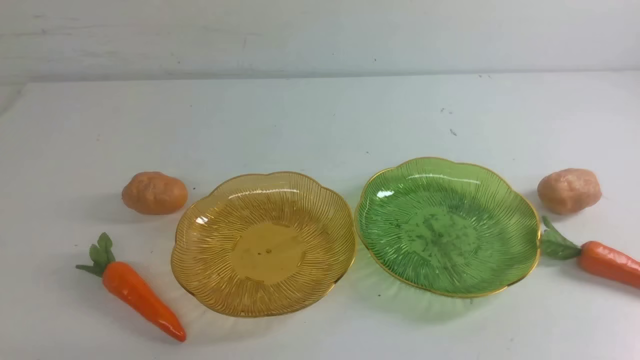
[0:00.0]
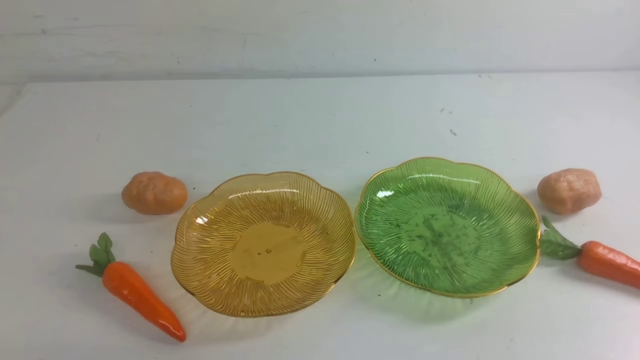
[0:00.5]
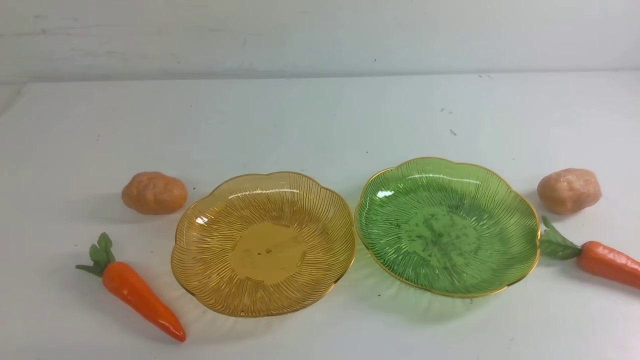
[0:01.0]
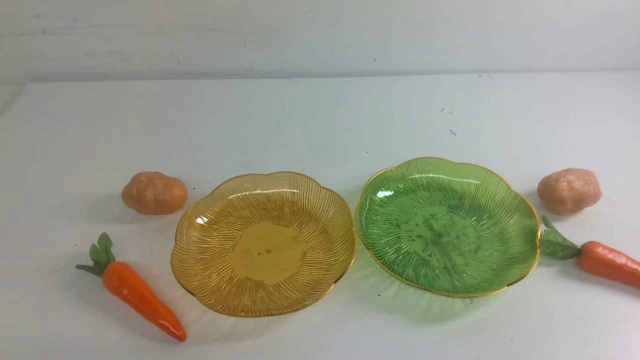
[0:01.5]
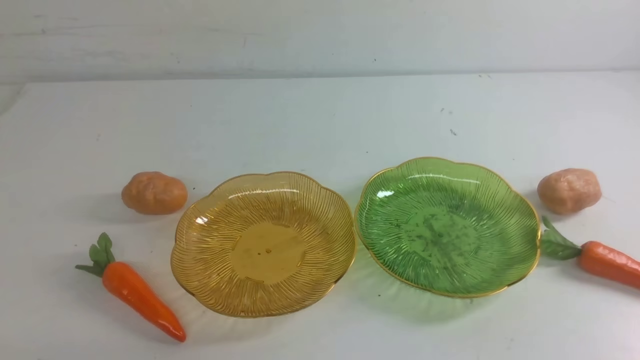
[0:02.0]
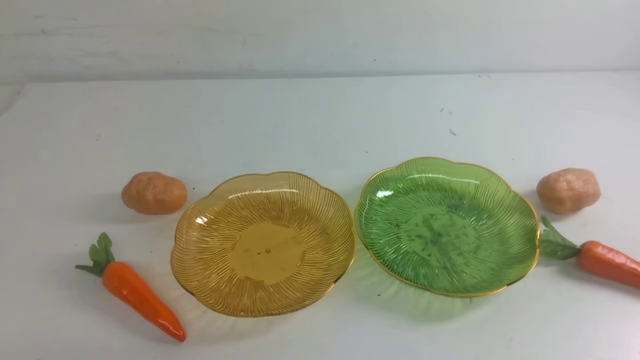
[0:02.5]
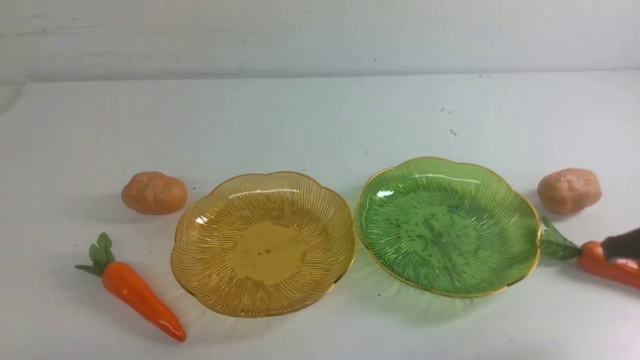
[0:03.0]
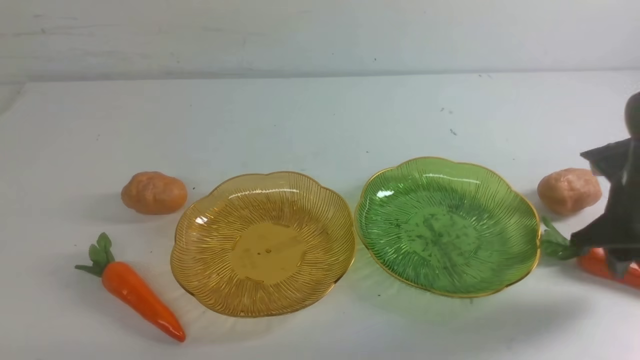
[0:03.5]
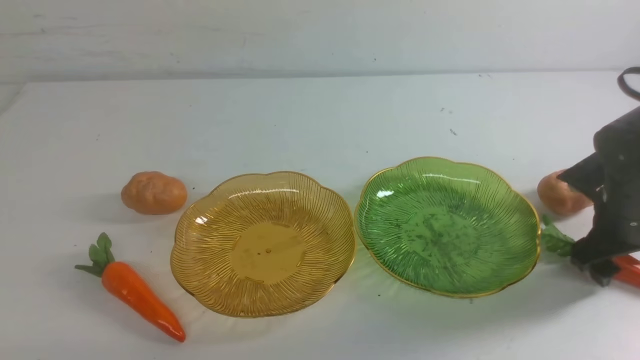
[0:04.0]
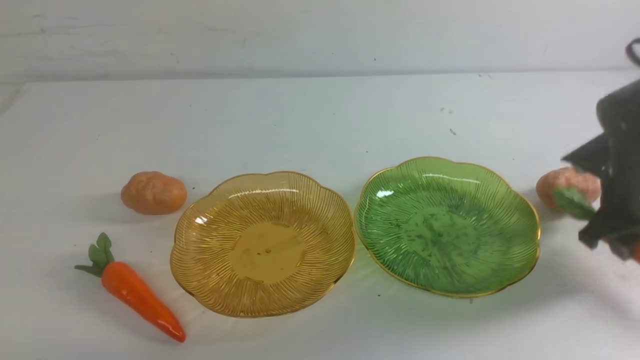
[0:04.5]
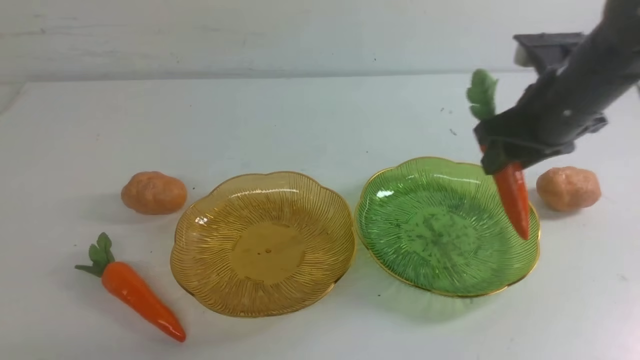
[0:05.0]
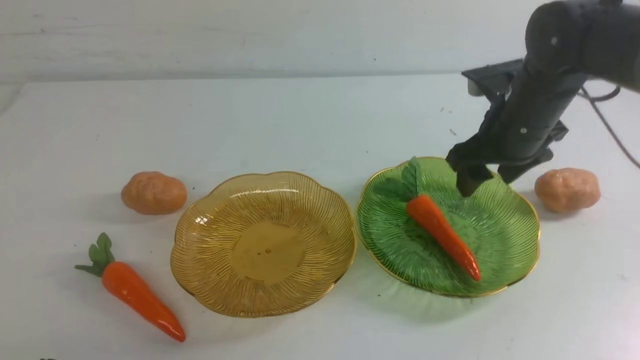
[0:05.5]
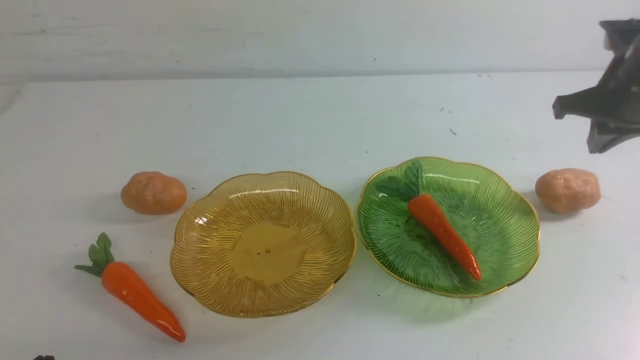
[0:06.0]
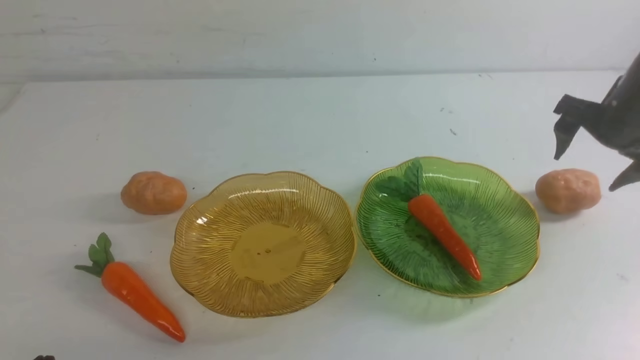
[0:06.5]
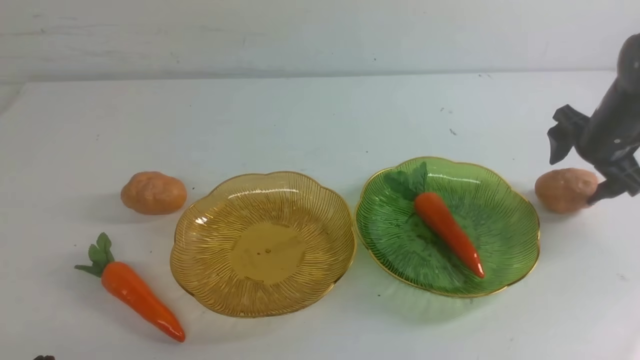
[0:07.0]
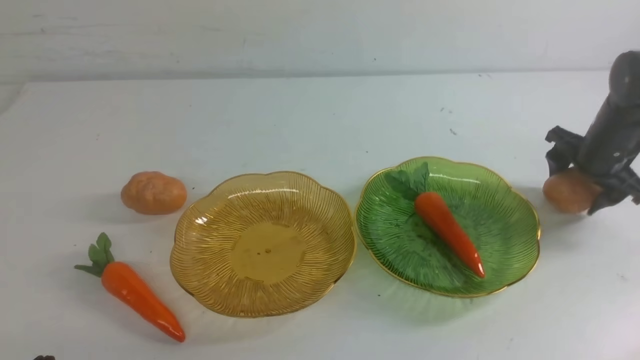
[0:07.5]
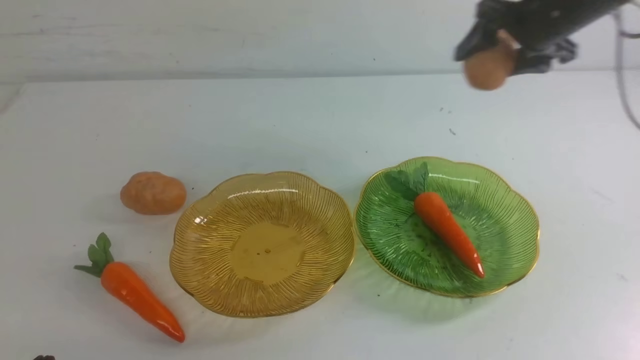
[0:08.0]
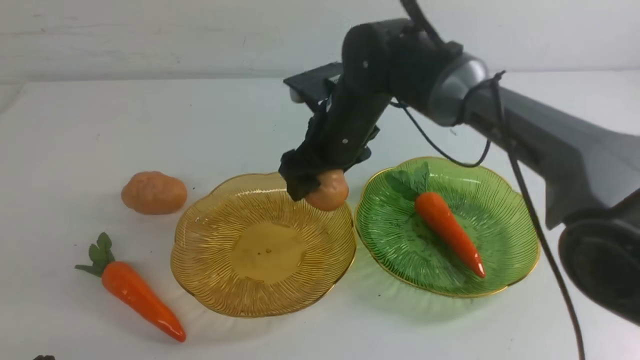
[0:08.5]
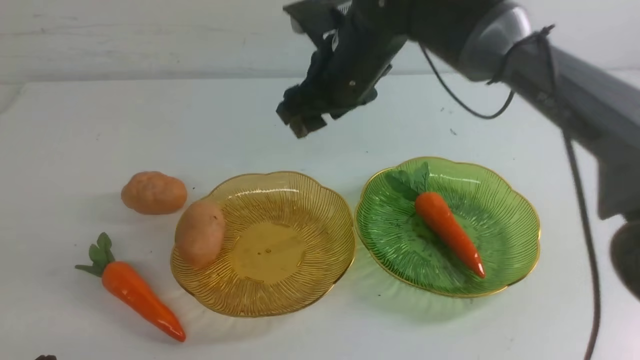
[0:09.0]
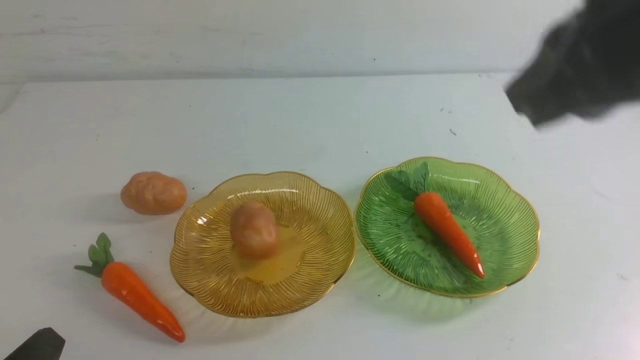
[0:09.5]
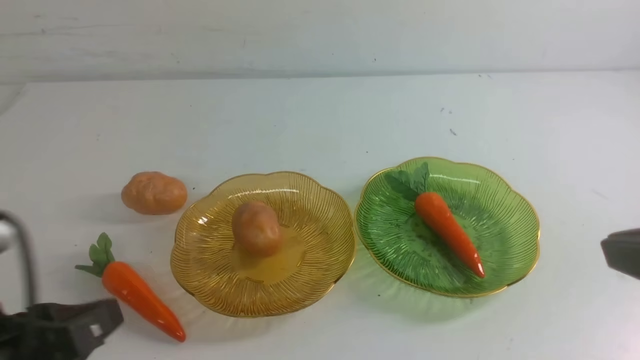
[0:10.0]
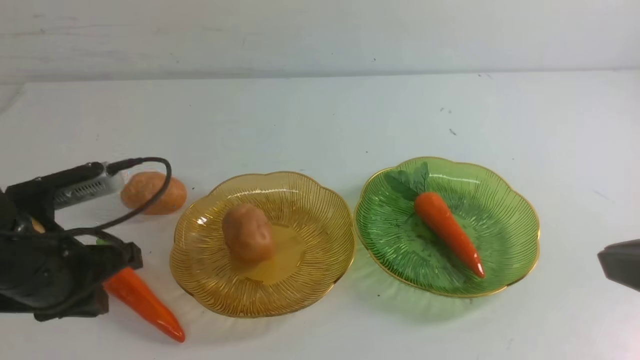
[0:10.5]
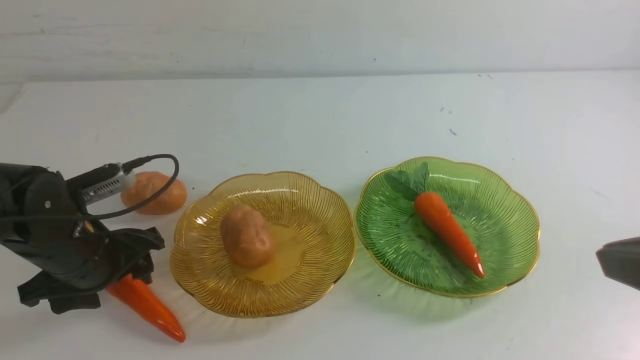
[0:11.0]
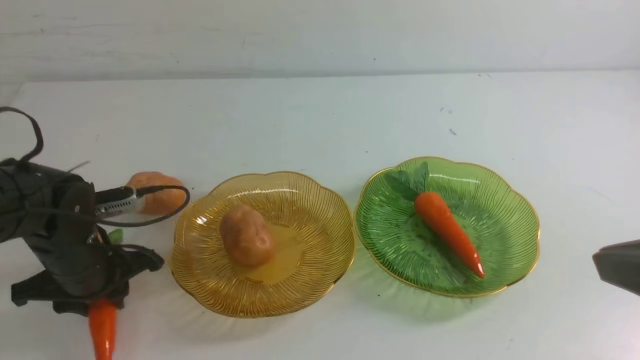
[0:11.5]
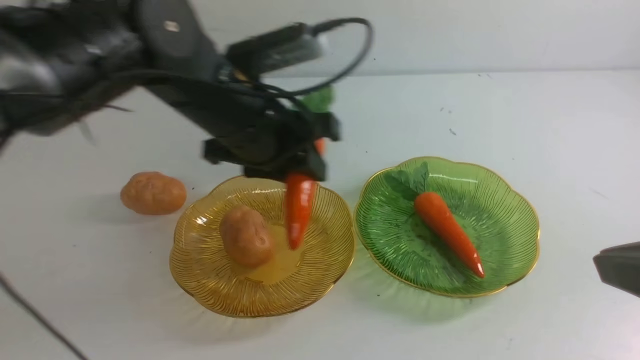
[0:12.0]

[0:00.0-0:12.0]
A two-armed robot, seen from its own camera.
Step, 0:00.0 to 0:05.0: use the right arm to grab a carrot and put it into the right plate.
Step, 0:05.5 to 0:08.5: Grab a potato with your right arm and put it on the left plate.
0:02.0 to 0:04.0: The right gripper moves forward, about 30 cm, and opens its fingers.
0:04.0 to 0:06.0: The right gripper goes roughly 5 cm forward, reaches some 10 cm to the left, then returns, and opens.
0:06.0 to 0:08.0: The right gripper goes roughly 25 cm to the left.
0:08.0 to 0:10.0: The left gripper heads forward, covering some 20 cm; the right gripper is displaced backward and to the right by roughly 35 cm, and closes its fingers.
0:10.0 to 0:12.0: The left gripper shifts approximately 35 cm to the right and forward, and opens up.

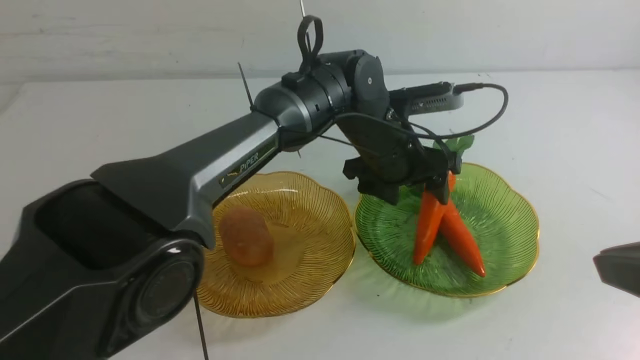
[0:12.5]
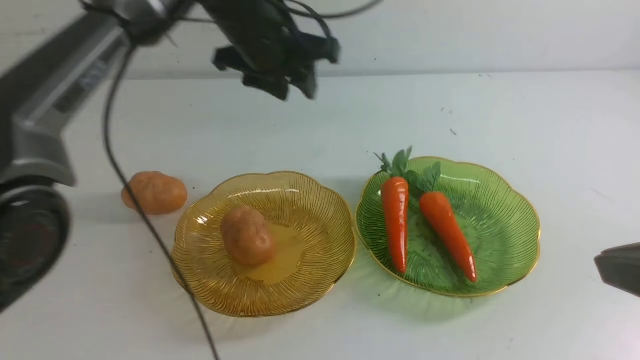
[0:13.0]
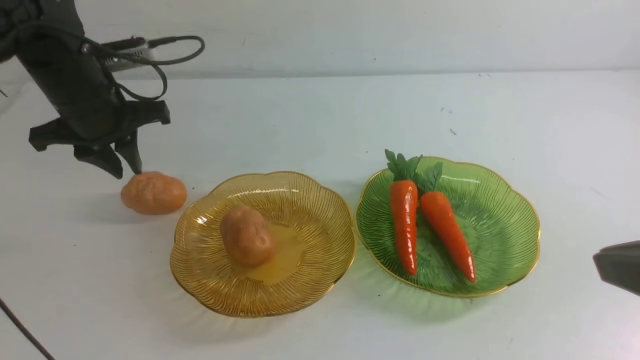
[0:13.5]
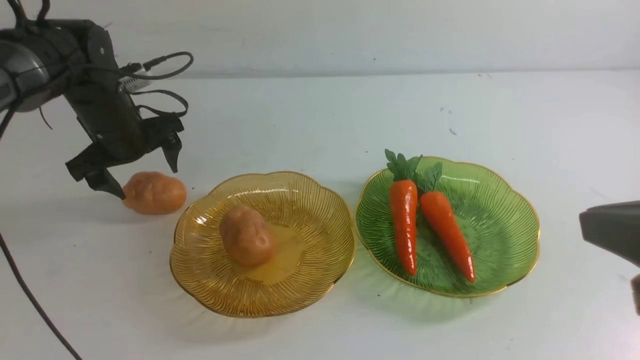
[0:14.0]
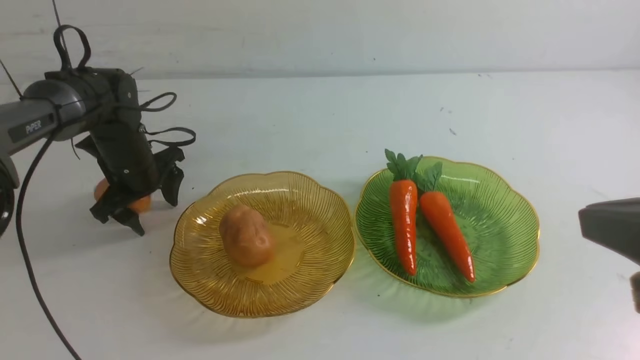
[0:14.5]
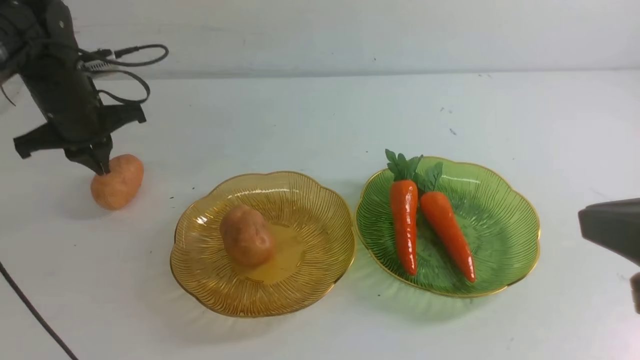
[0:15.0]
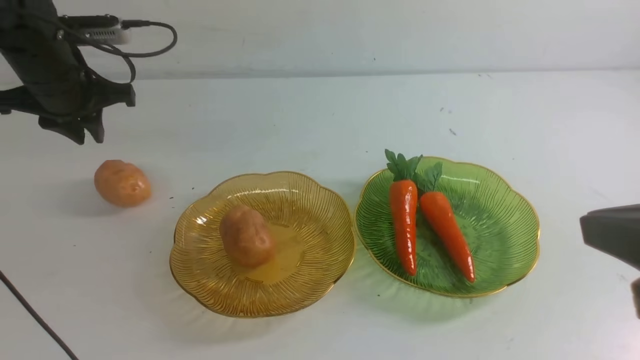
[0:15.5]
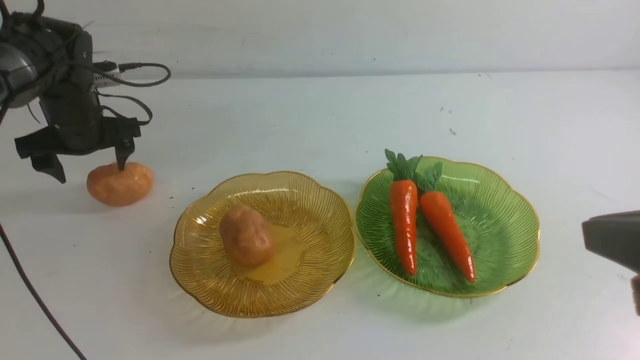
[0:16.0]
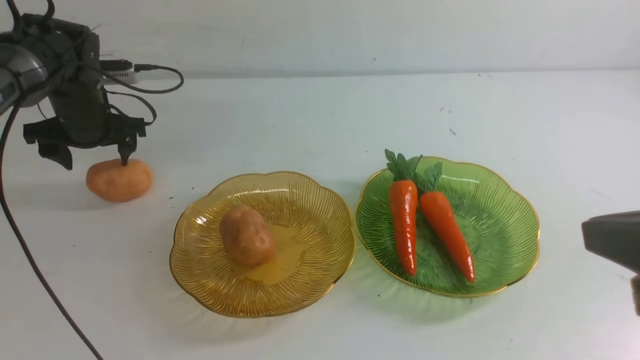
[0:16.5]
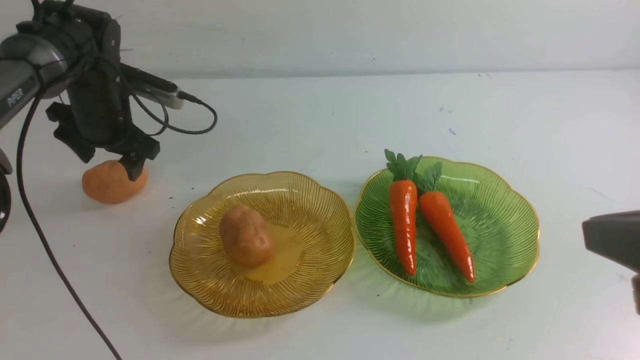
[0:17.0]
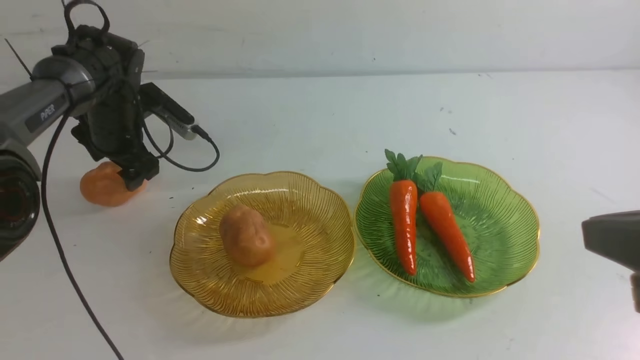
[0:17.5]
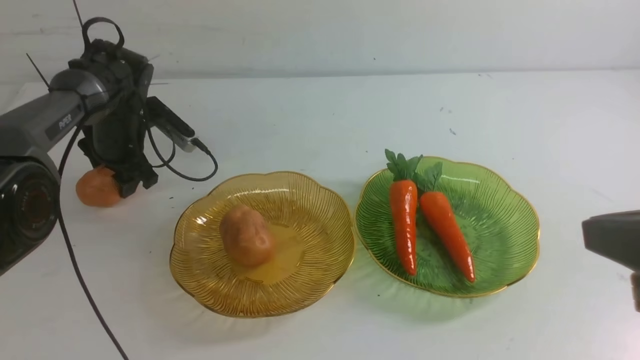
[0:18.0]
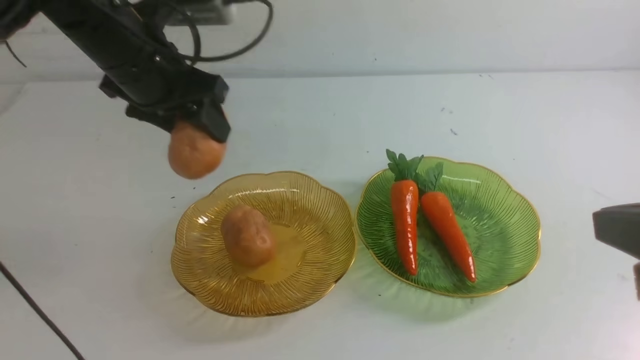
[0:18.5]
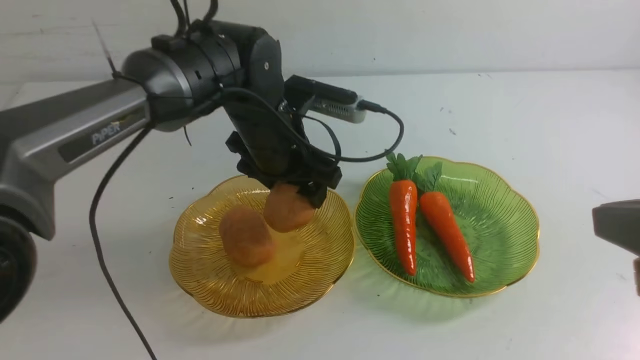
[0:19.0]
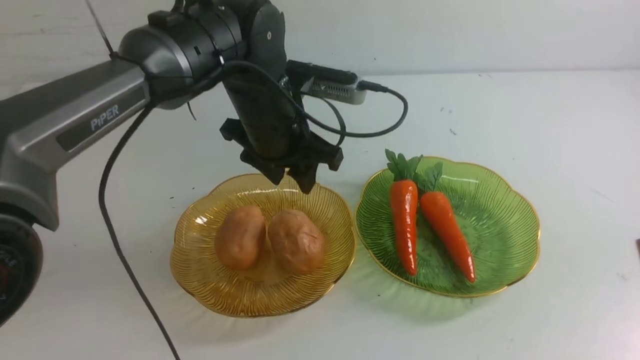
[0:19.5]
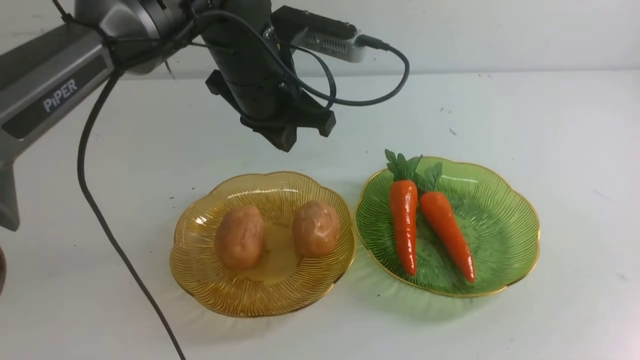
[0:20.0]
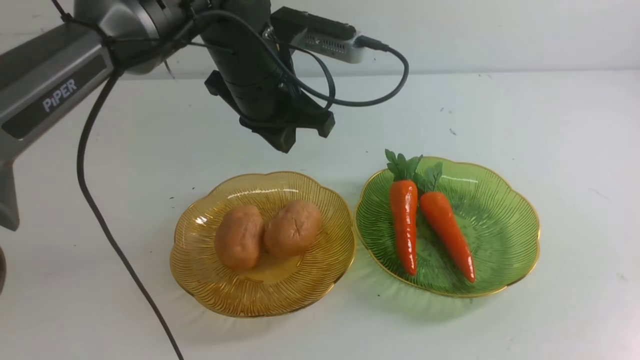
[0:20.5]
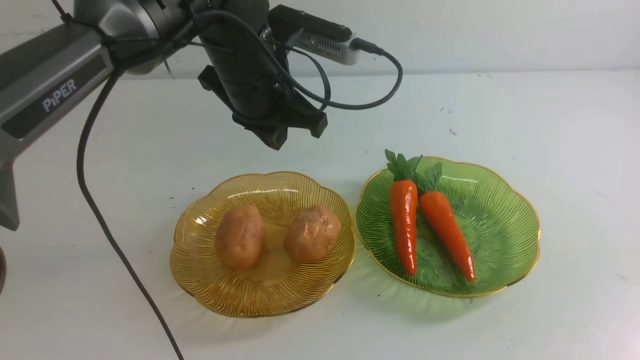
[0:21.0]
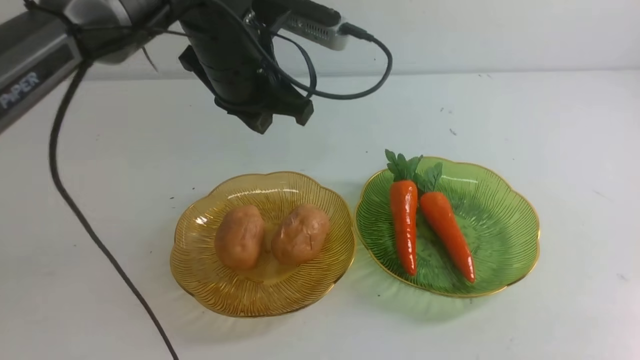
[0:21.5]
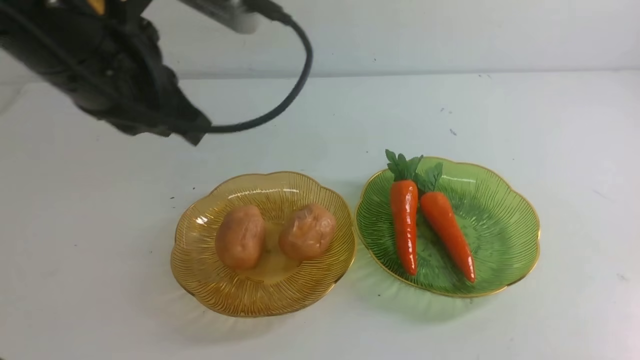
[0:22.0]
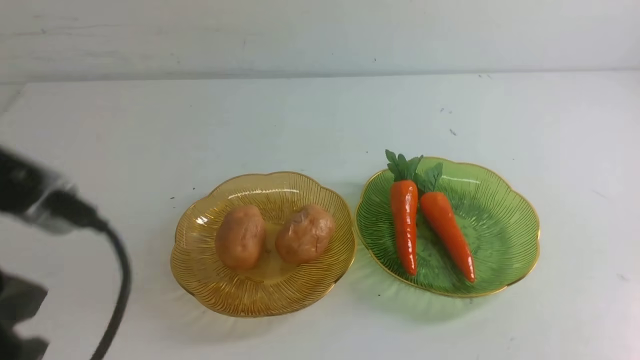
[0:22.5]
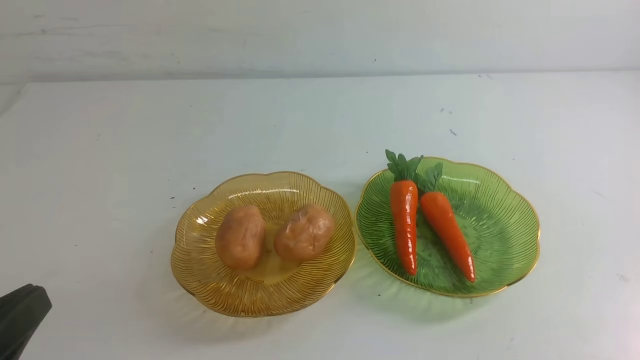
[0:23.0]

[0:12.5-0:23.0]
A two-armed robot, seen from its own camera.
Step, 0:13.0 to 0:19.0: Grab a potato with your left arm and put it on the left plate.
0:12.5 to 0:14.5: The left gripper travels to the left and downward by some 20 cm, and opens, then closes again.
0:14.5 to 0:16.5: The left gripper shifts by roughly 5 cm, and opens.
0:16.5 to 0:19.0: The left gripper shifts roughly 25 cm to the right.
0:19.0 to 0:21.0: The left gripper goes roughly 5 cm upward, and closes, while the right gripper shifts approximately 10 cm downward and backward.
0:21.0 to 0:23.0: The right gripper heads downward, covering some 10 cm. The left gripper heads backward and to the left, covering approximately 35 cm.
